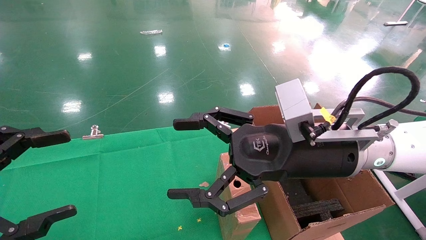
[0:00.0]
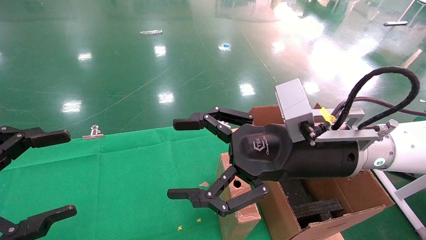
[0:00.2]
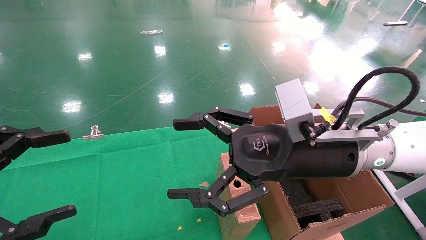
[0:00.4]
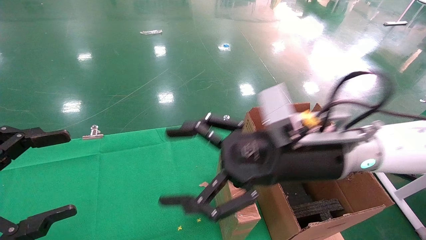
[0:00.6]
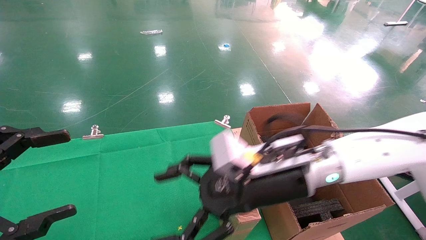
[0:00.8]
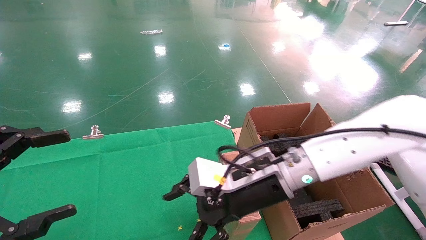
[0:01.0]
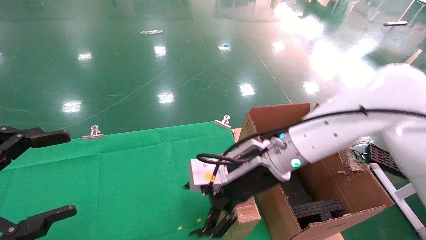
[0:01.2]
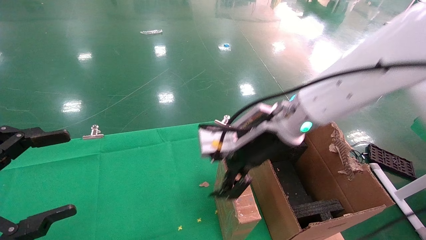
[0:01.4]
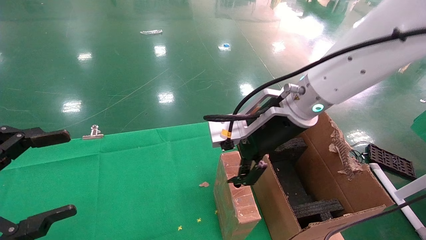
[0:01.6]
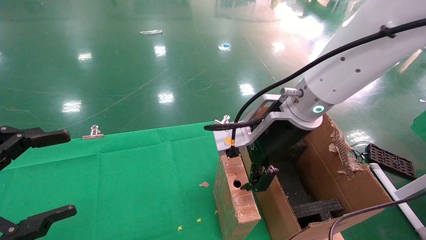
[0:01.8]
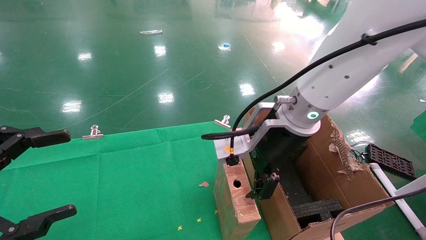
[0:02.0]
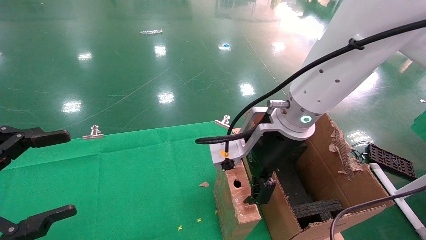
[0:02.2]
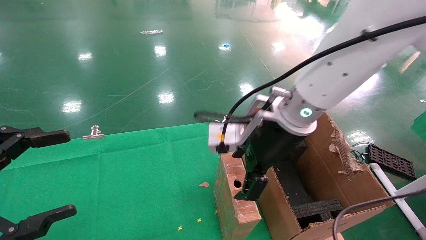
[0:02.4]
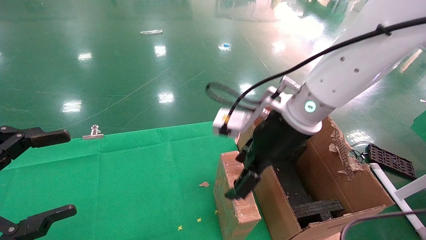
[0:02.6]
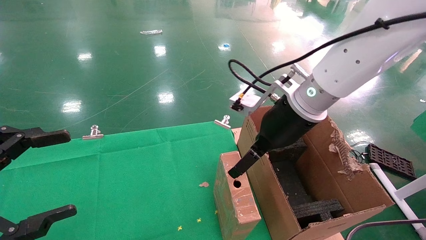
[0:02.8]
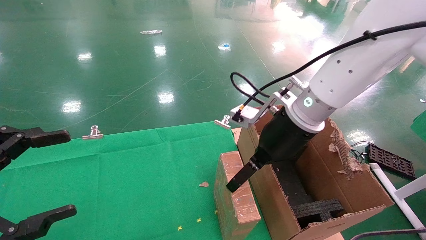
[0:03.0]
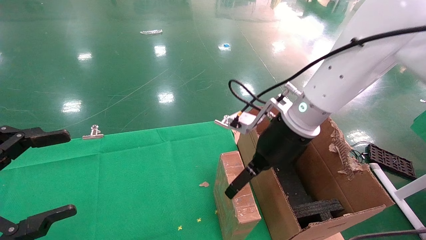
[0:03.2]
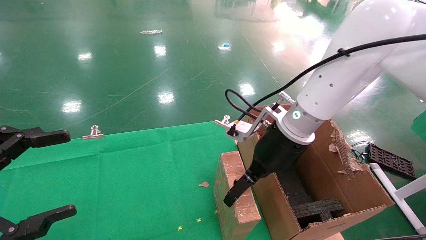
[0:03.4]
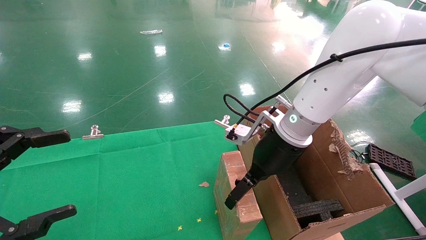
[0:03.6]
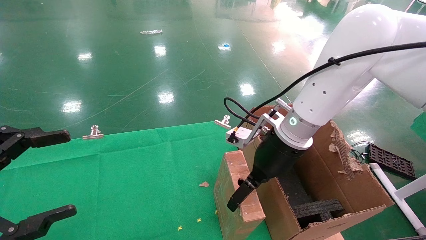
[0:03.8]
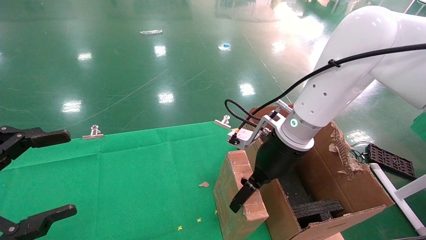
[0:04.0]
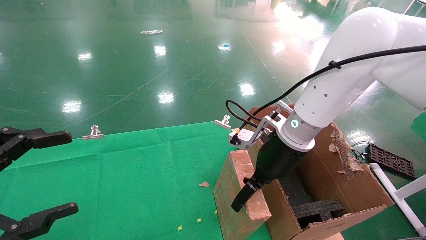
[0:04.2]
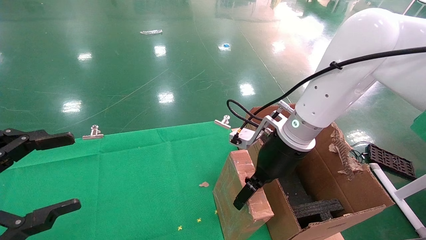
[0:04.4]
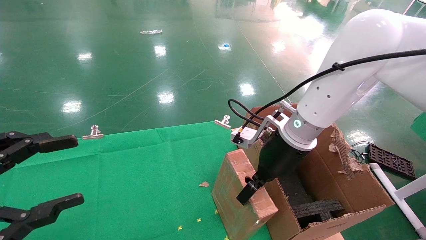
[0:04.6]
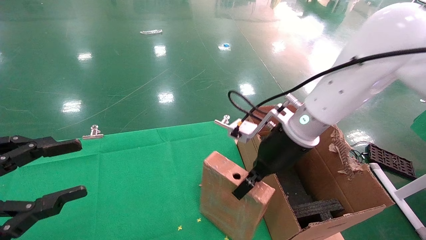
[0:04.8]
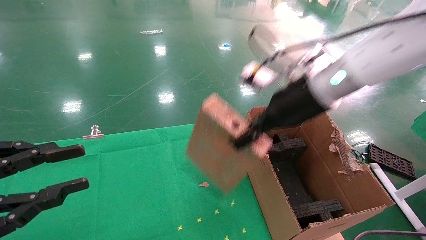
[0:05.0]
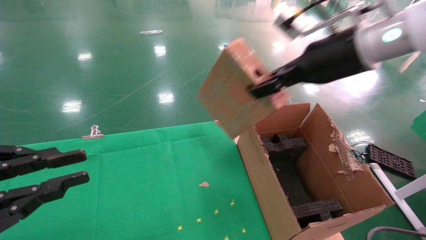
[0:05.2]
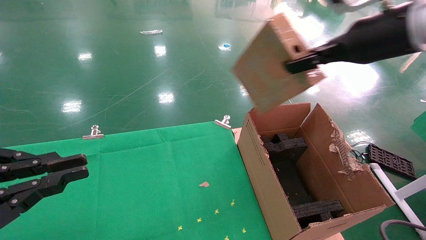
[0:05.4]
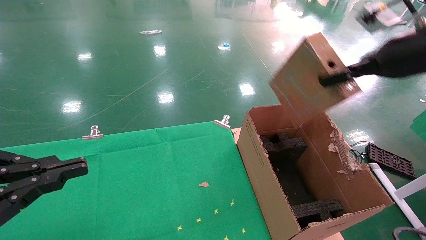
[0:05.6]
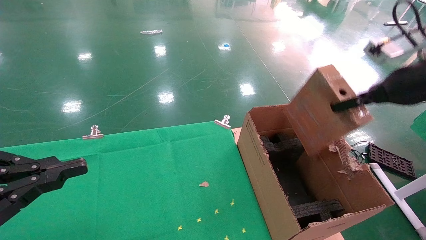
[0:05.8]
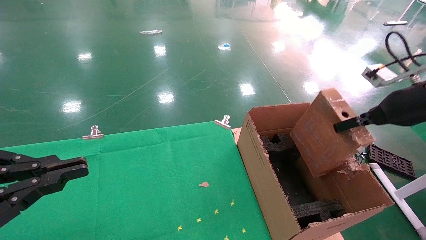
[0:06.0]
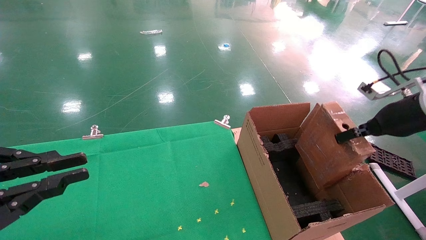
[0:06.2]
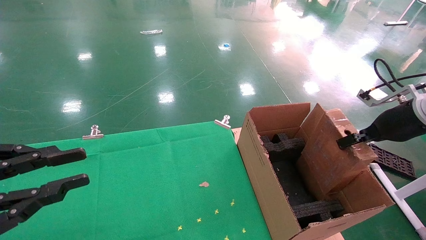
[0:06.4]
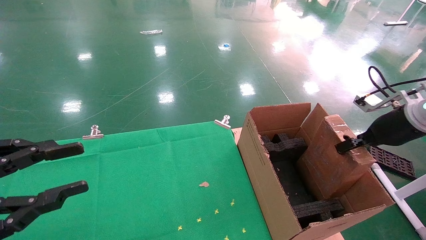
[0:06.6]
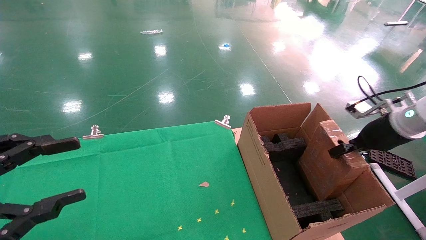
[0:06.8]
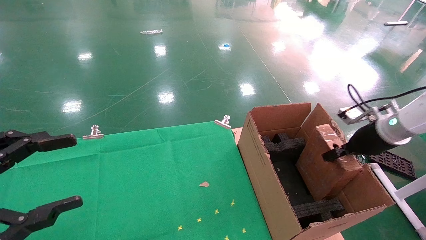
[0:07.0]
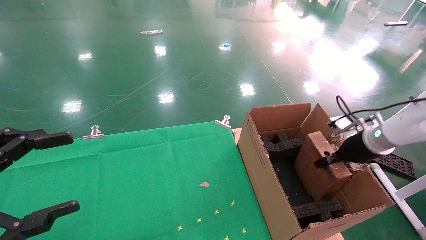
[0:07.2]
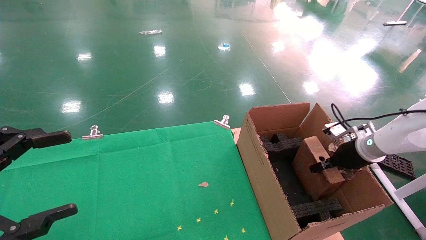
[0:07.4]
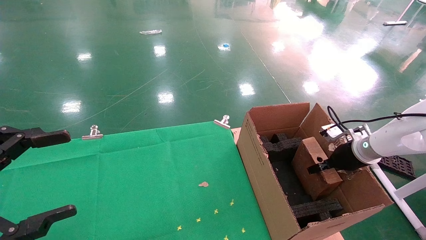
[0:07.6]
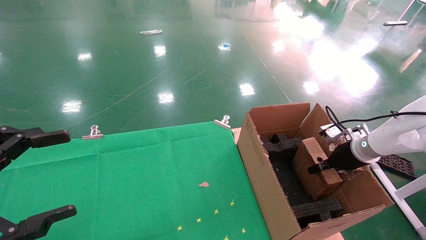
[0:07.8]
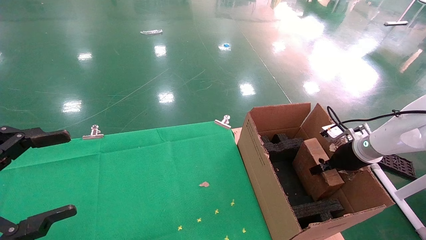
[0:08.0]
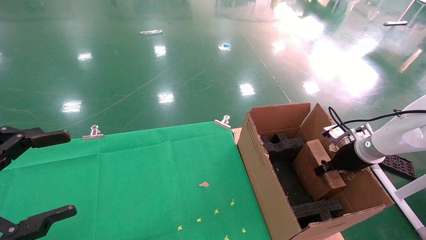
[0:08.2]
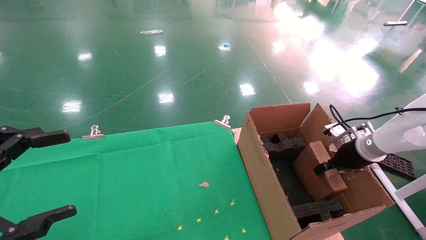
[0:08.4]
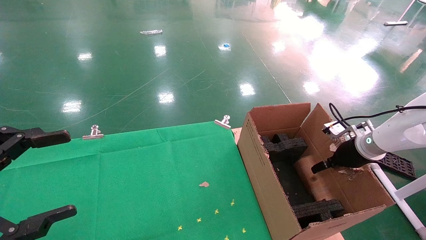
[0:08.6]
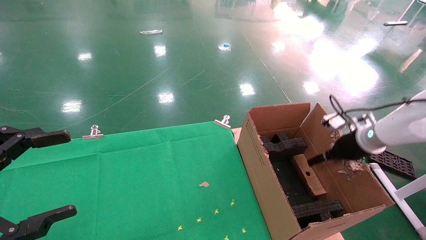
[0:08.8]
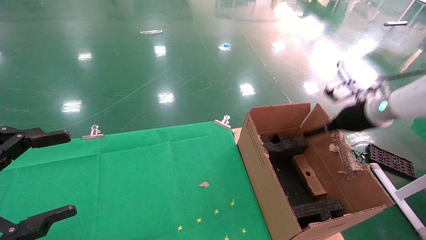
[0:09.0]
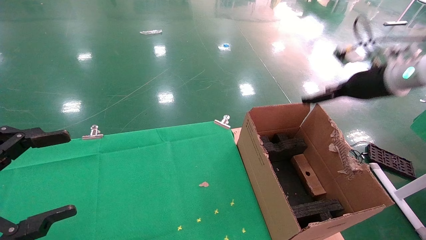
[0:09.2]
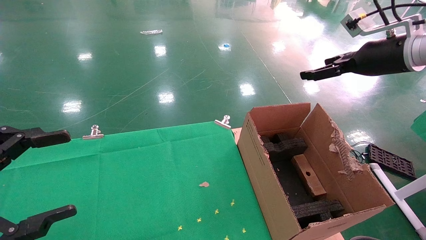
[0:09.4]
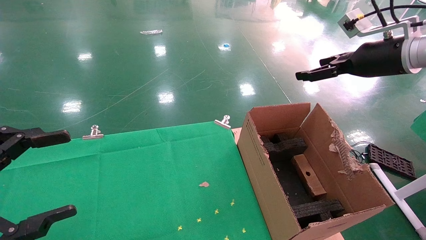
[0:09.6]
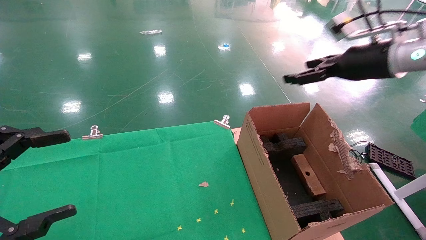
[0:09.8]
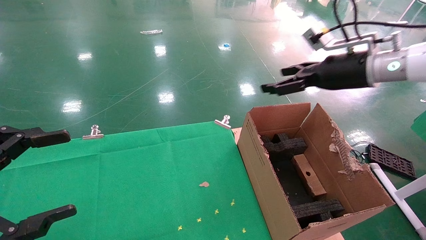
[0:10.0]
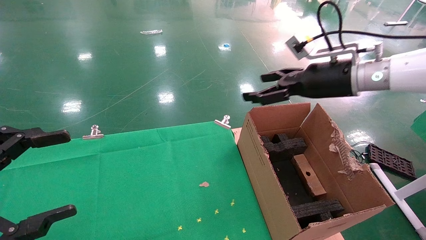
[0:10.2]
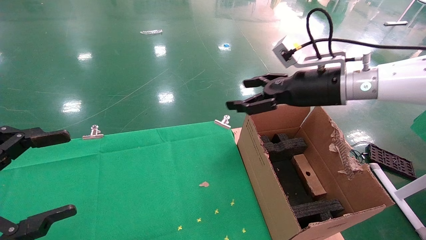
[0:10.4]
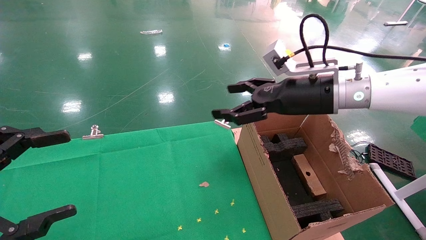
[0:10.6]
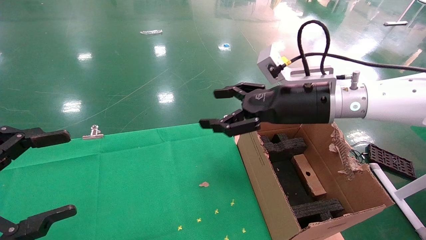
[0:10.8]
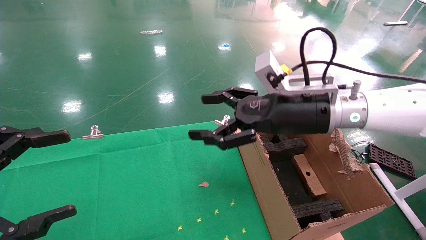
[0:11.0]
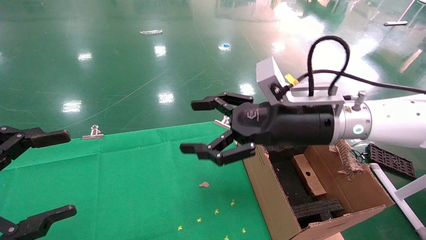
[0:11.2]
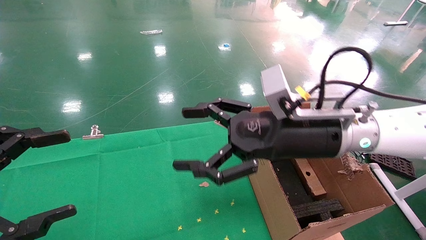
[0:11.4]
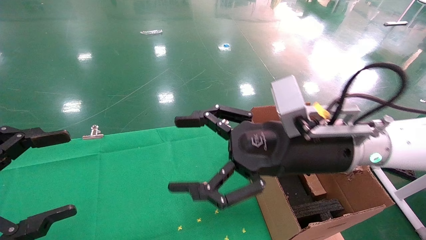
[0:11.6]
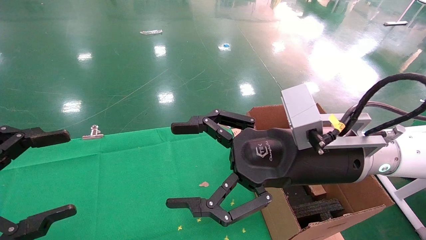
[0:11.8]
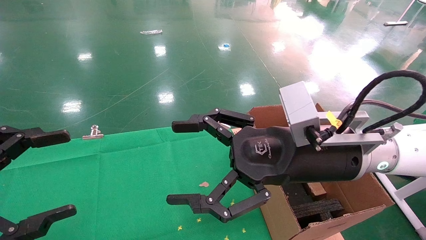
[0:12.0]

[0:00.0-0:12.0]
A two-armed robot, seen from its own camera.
Task of the whole recording: using a robotic arm to pick up a cardboard box and palace it the carton.
Step, 0:00.8 to 0:04.8: Pick up the mouse and the power cord paper box.
Step, 0:05.0 to 0:09.2: Place the mouse and the power cord paper box into the container.
0:00.0 to 0:01.6: The right gripper moves forward, some 5 cm.
0:03.0 to 0:04.4: The grippers stay close to where they were, moving slightly.
0:04.4 to 0:06.0: The right gripper shifts about 25 cm to the right, and closes up, while the left gripper closes up.
0:06.0 to 0:07.6: The left gripper opens its fingers. Meanwhile the right gripper is displaced downward and forward by some 20 cm.
0:07.6 to 0:09.0: The right gripper moves upward, approximately 10 cm, and opens its fingers.
0:09.0 to 0:10.4: The right gripper goes some 15 cm to the left and upward.
0:10.4 to 0:12.0: The right gripper travels backward, to the left and downward by some 15 cm.

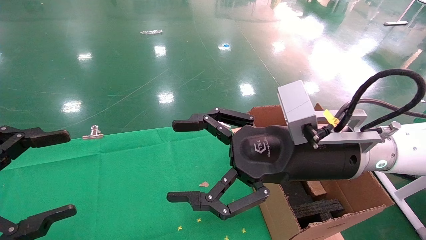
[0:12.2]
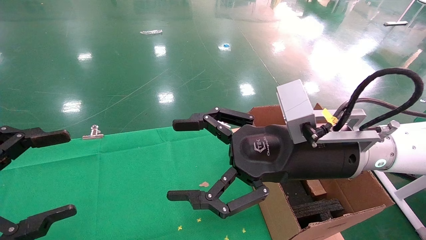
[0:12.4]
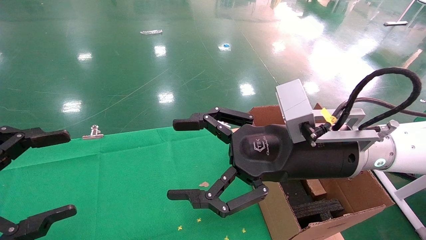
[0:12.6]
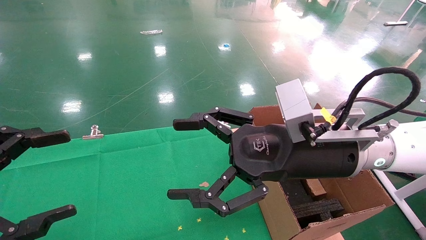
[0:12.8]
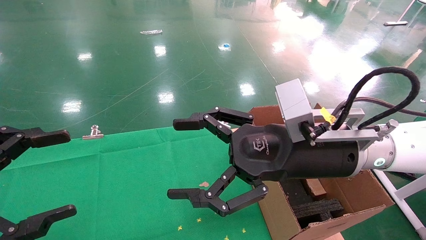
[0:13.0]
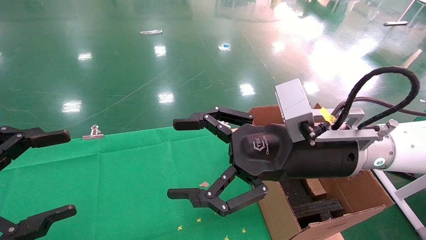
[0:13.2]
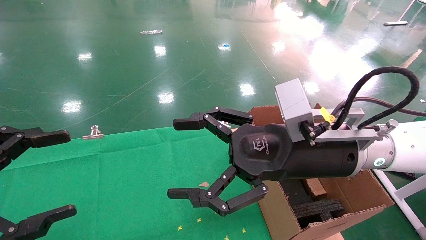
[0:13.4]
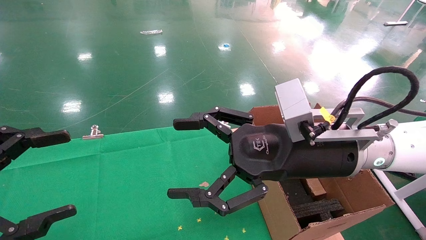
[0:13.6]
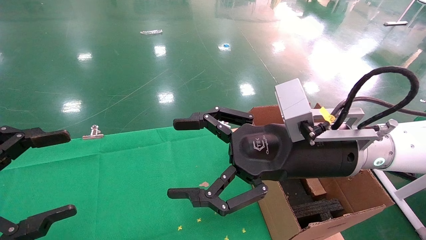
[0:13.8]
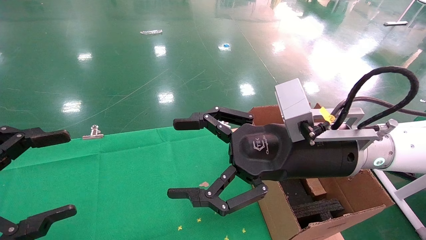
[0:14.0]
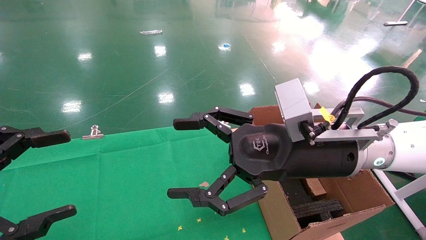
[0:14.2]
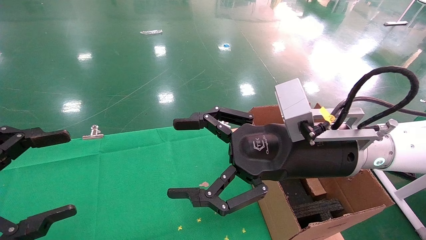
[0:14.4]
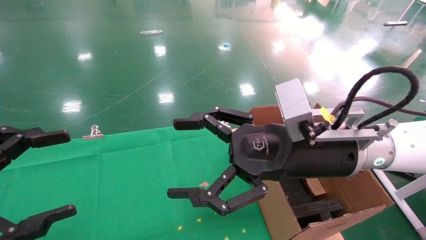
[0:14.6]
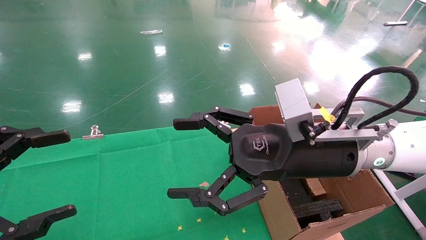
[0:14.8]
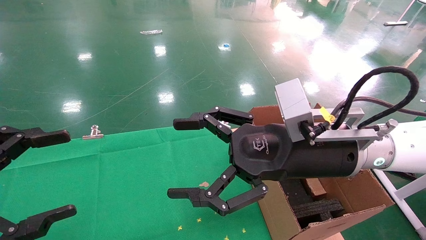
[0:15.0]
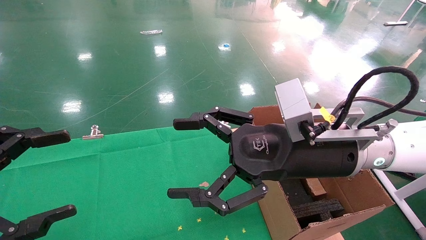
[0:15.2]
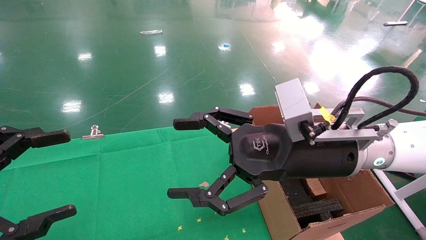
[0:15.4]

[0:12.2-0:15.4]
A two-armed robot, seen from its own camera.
Task of the whole recording: using a robotic arm to pick up a cardboard box and palace it the carton.
0:12.2 to 0:15.4: Both grippers stay put.
